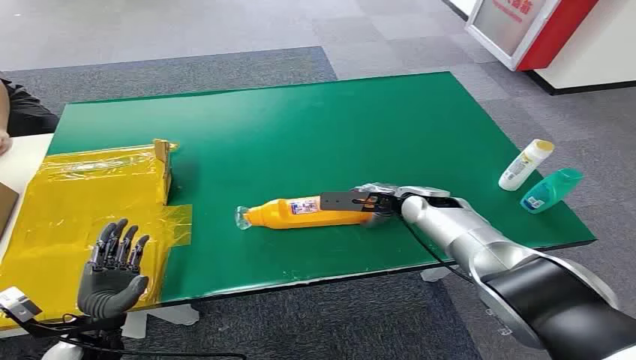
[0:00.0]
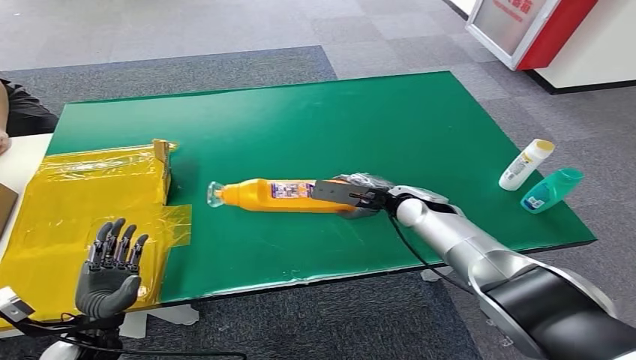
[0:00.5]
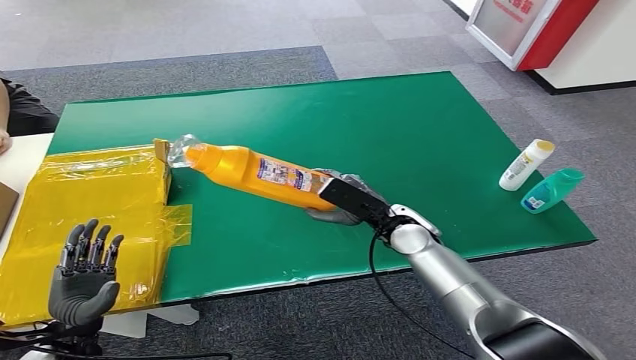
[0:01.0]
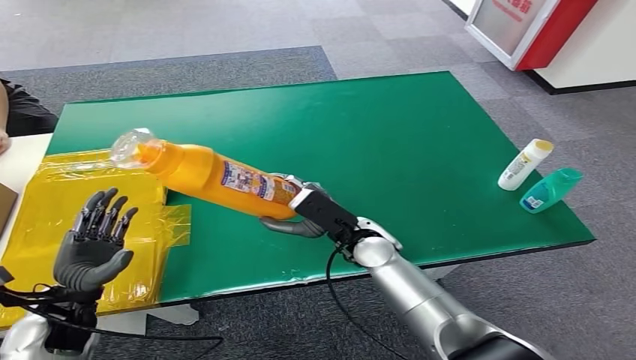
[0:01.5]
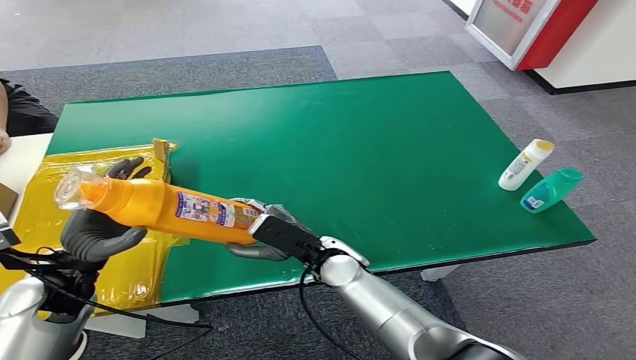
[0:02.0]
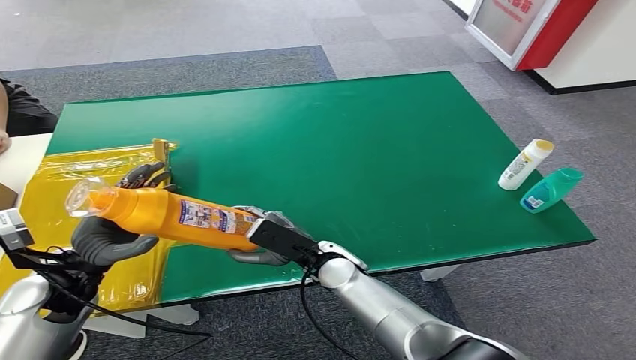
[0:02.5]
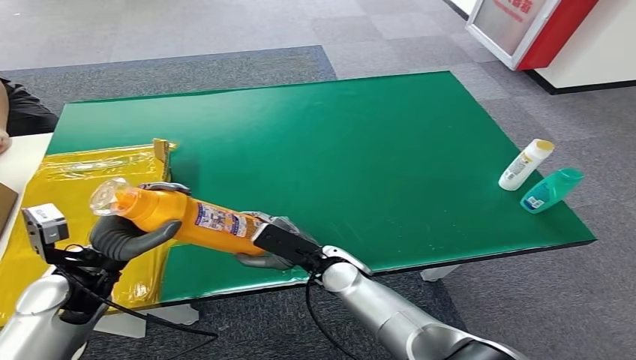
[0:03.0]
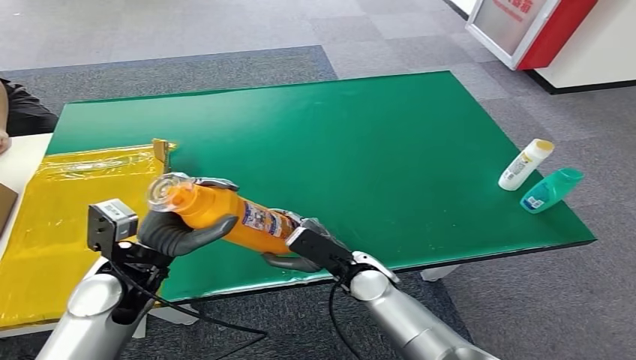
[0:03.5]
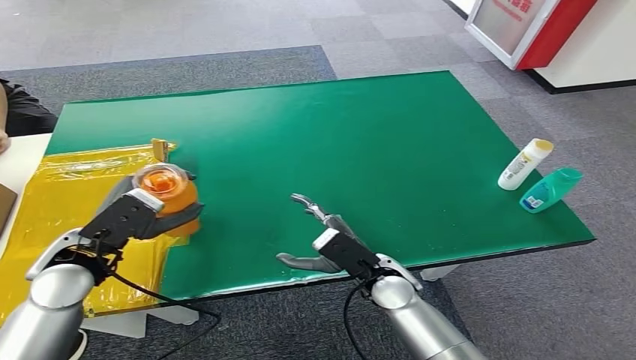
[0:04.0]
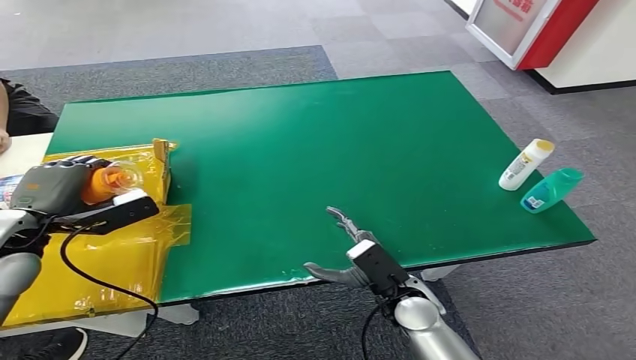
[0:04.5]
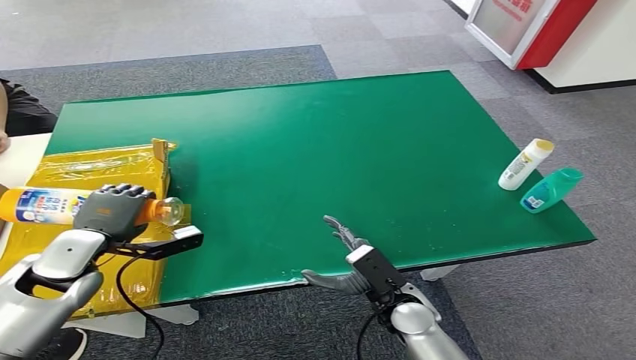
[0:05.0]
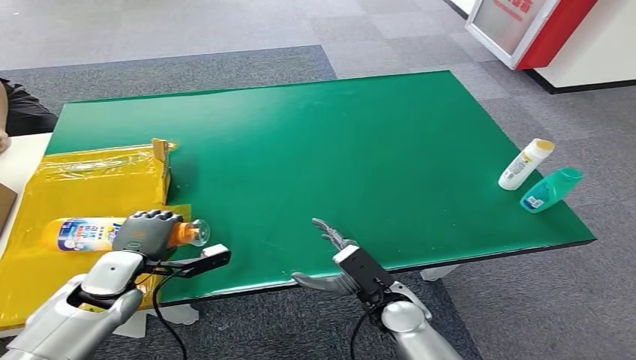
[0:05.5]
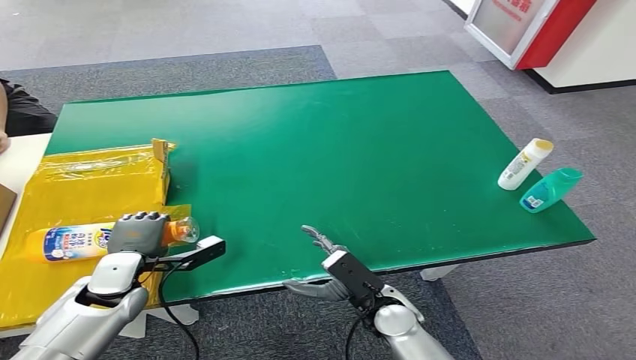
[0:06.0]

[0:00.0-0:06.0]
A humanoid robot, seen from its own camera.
Step, 0:00.0 to 0:01.0: Pick up the bottle from the table.
Step, 0:01.5 to 0:06.0: Turn the bottle to the front side.
0:02.0 to 0:04.0: The left hand ends up approximately 5 cm from where it was, while the right hand is displaced to the right by some 5 cm.
0:04.0 to 0:06.0: The right hand ends up about 5 cm from where it was; the left hand is displaced downward by roughly 10 cm.

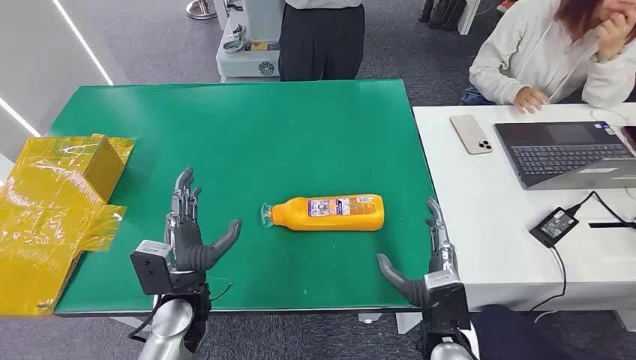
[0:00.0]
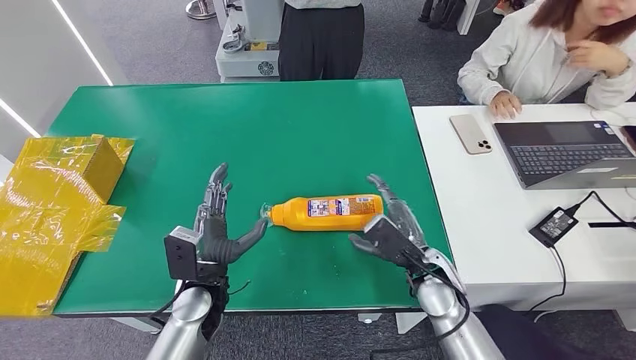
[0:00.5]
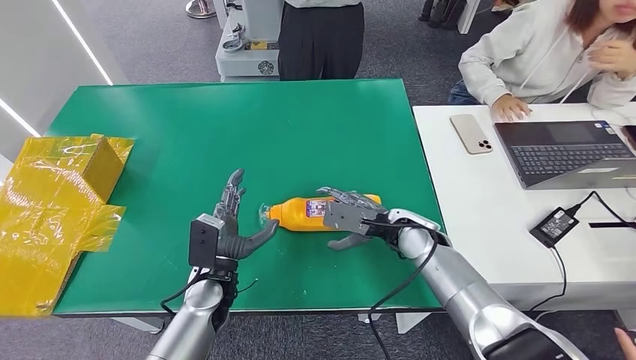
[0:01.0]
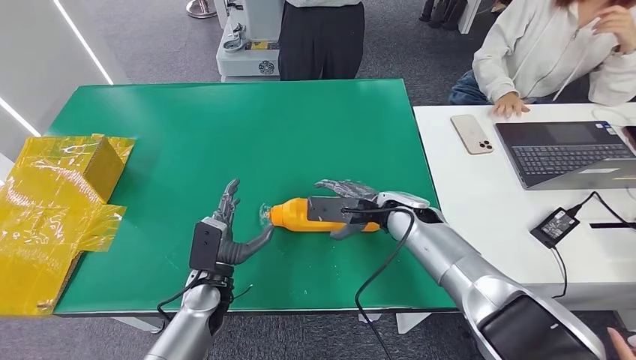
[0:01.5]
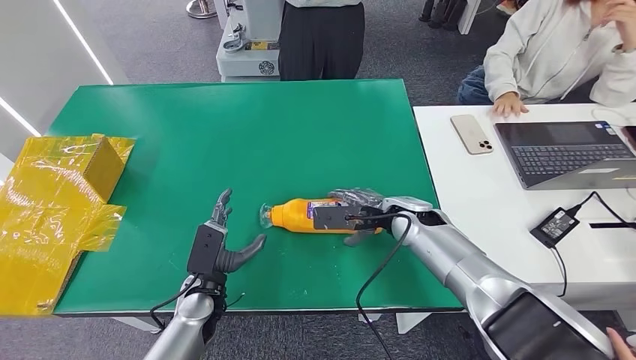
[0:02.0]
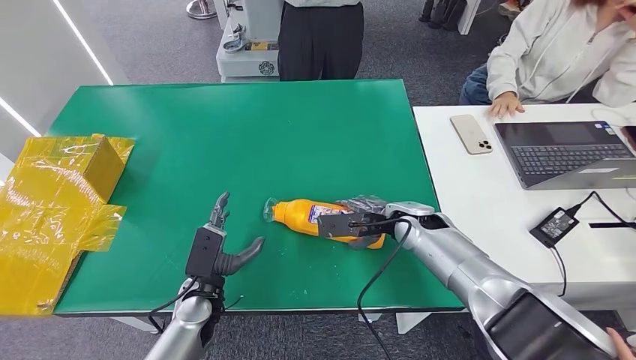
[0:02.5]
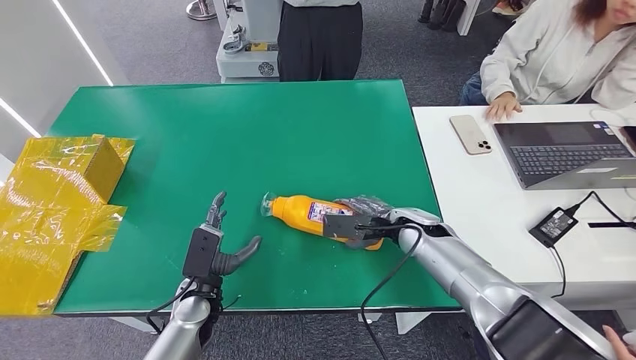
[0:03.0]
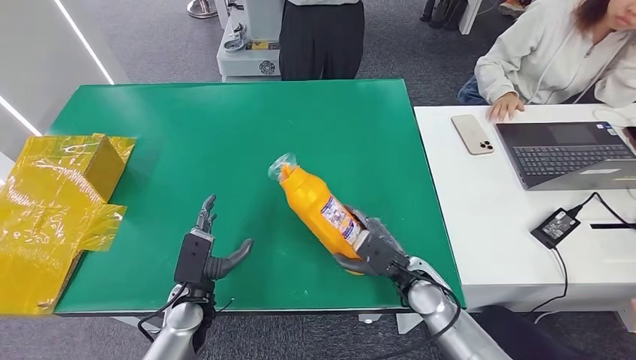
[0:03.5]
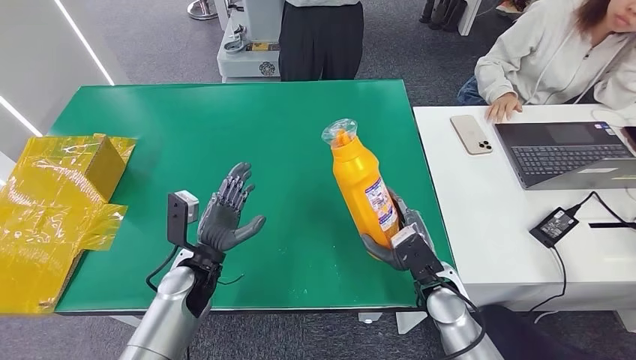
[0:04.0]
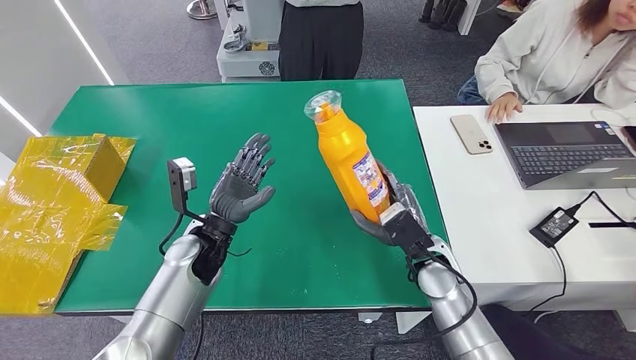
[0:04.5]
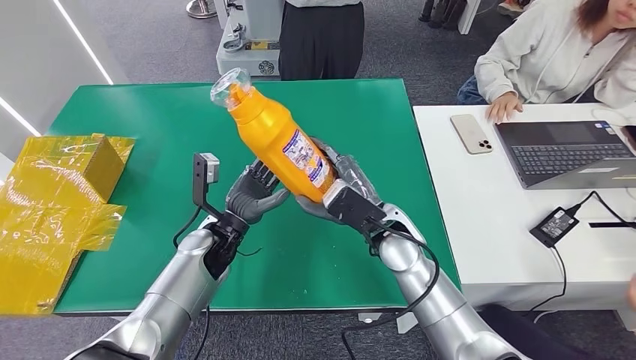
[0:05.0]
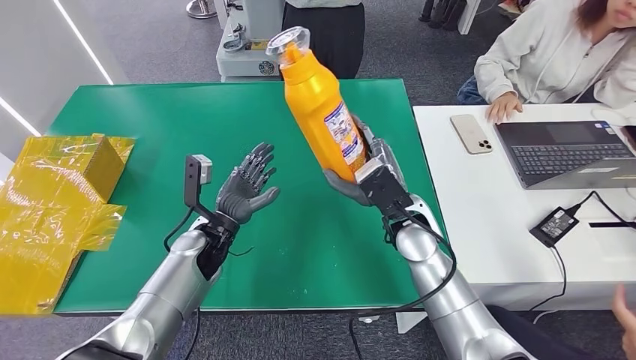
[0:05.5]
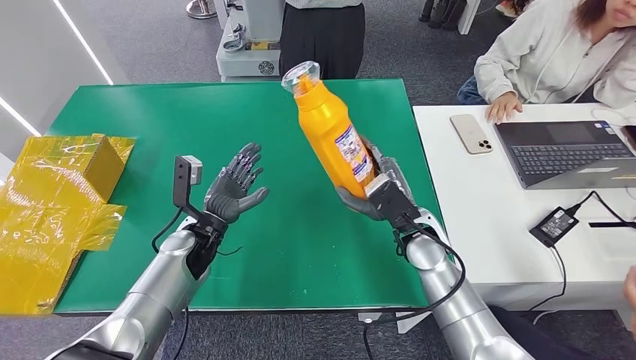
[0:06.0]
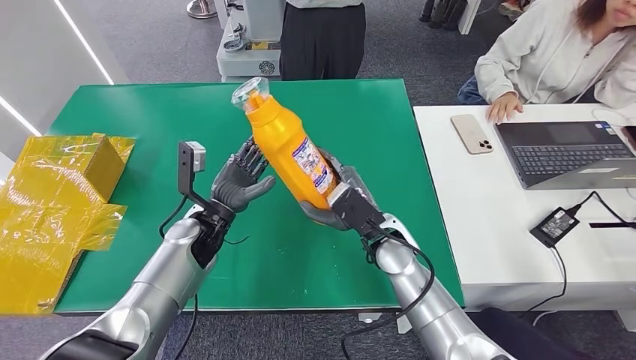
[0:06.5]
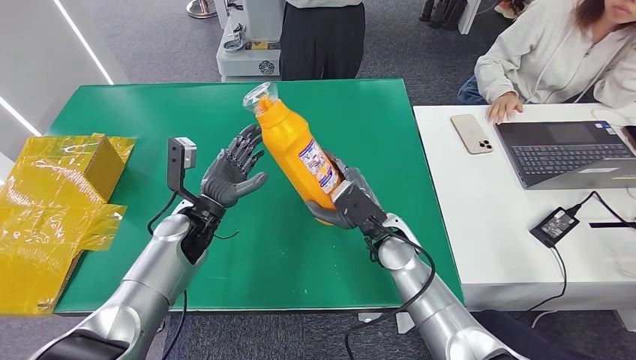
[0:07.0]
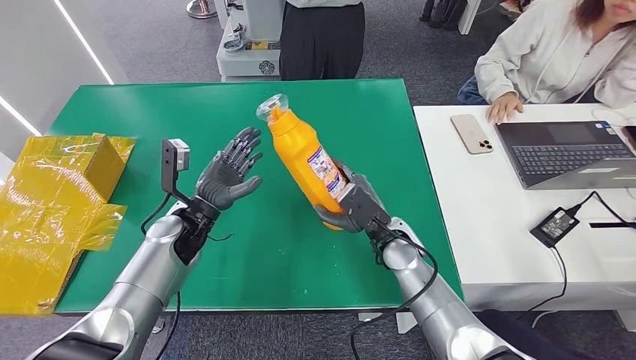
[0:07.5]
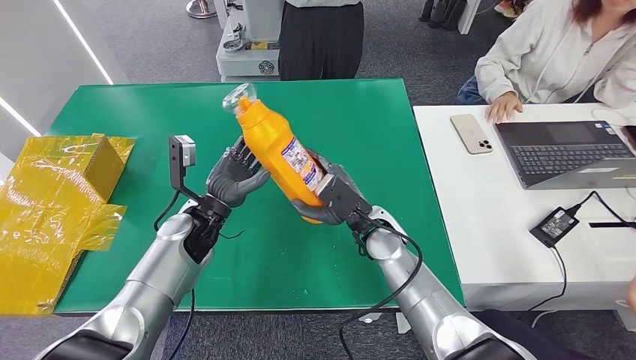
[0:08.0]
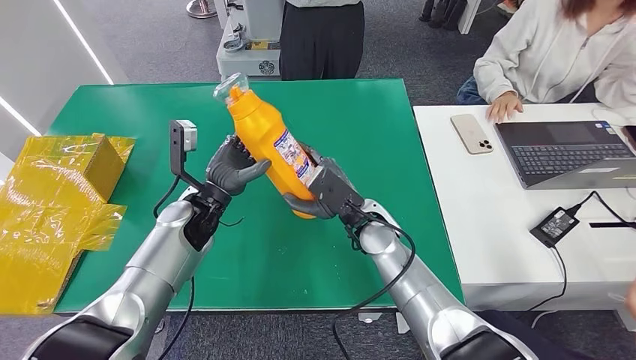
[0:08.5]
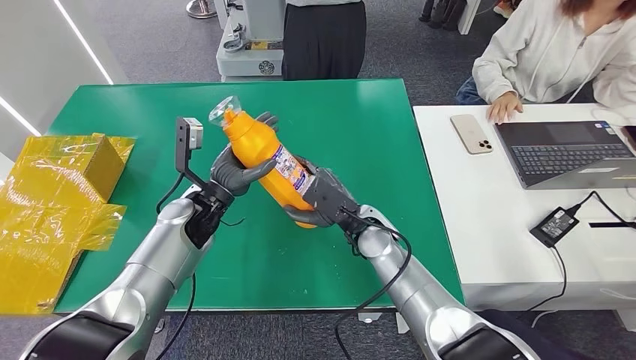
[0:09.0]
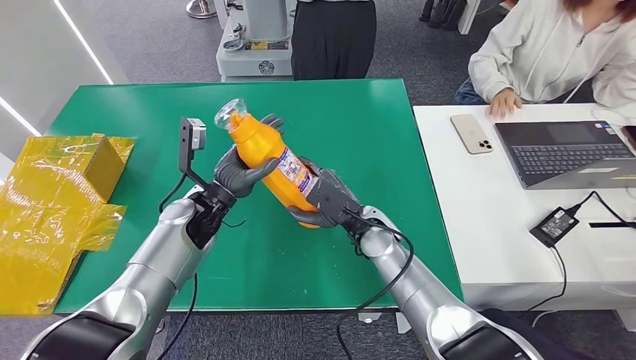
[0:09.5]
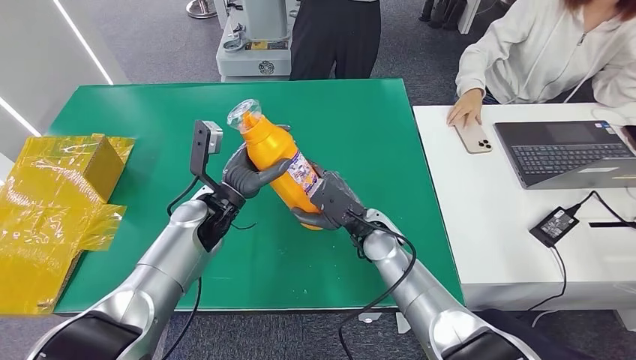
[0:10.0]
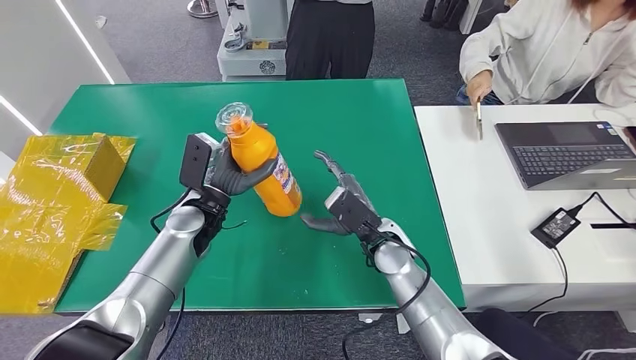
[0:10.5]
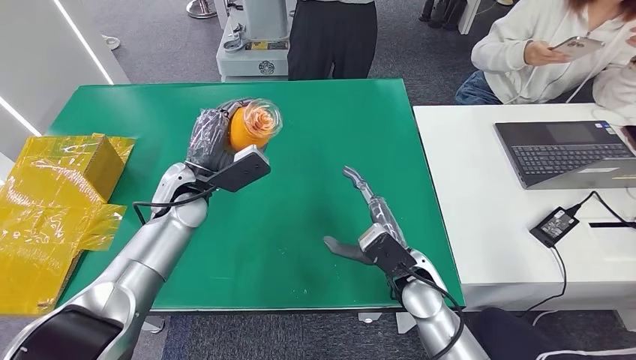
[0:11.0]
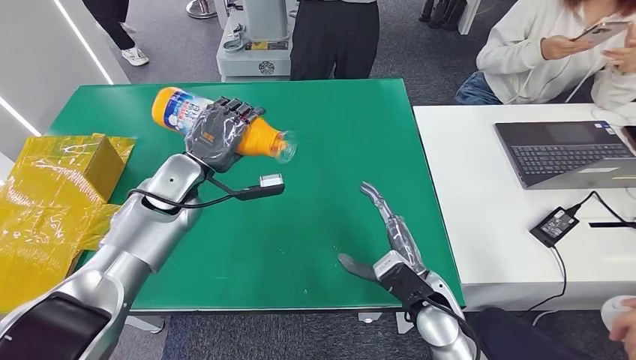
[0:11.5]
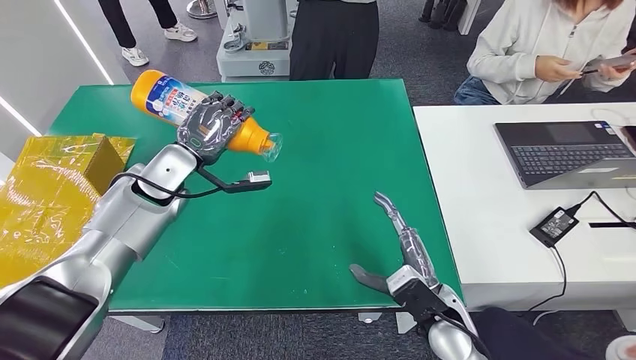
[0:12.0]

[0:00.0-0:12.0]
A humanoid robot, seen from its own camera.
Step, 0:00.0 to 0:05.0: Pick up the bottle from the table.
0:02.0 to 0:04.0: The right hand is displaced backward and downward by some 15 cm. Meanwhile the left hand changes place by some 5 cm.
0:04.0 to 0:06.0: The right hand shifts about 10 cm forward and upward. The left hand shifts approximately 5 cm forward.
0:06.0 to 0:08.0: The right hand travels to the left by roughly 5 cm.
0:08.0 to 0:10.0: The hands make only small movements.

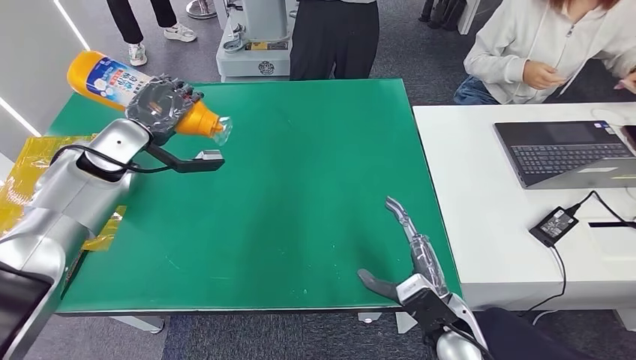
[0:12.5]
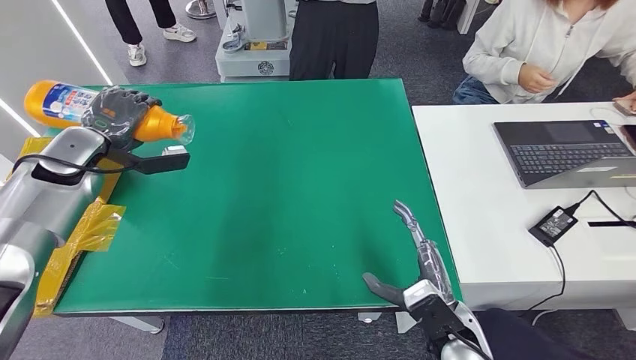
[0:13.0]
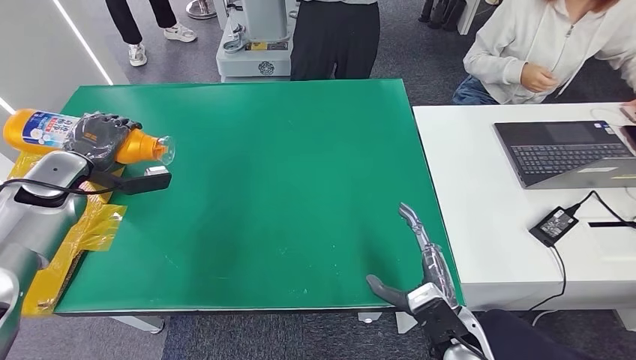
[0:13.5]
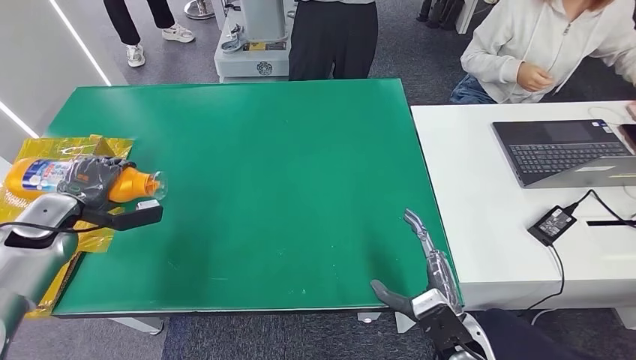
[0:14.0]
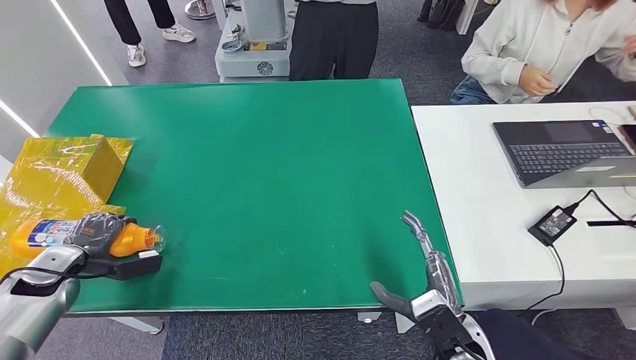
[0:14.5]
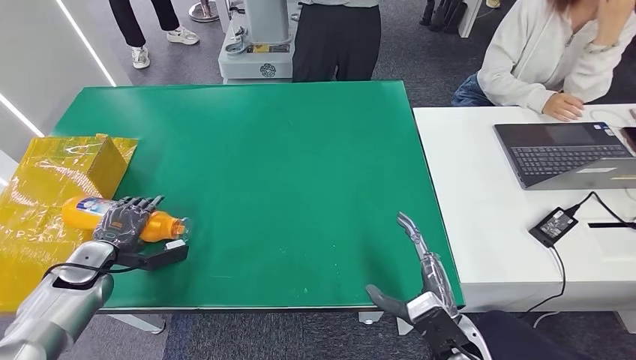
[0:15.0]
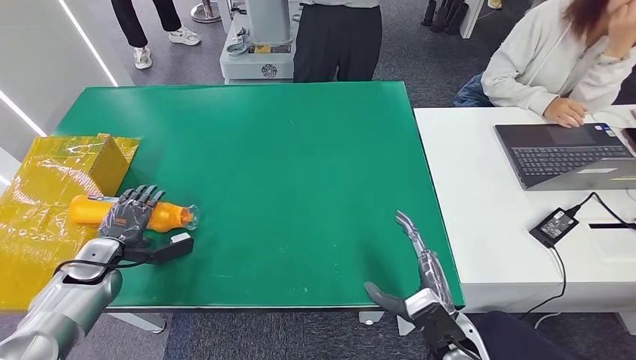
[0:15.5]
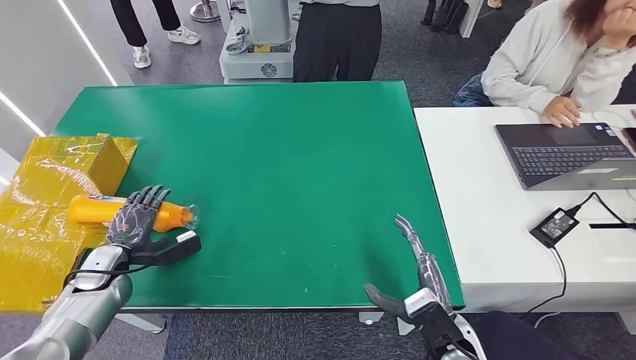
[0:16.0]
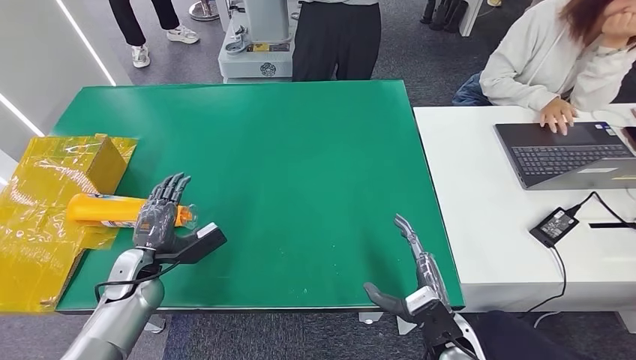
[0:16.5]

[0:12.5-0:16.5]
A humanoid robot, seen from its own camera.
Step, 0:12.5 to 0:16.5: Turn the bottle to the front side.
0:12.5 to 0:14.5: The left hand travels downward, to the left and backward by about 30 cm.
